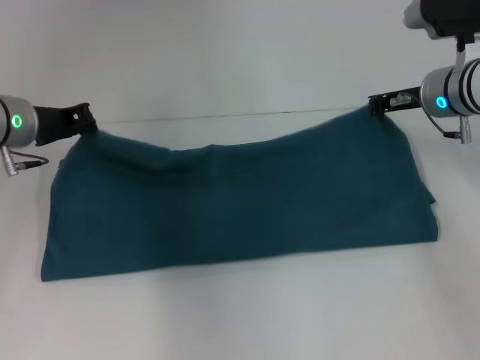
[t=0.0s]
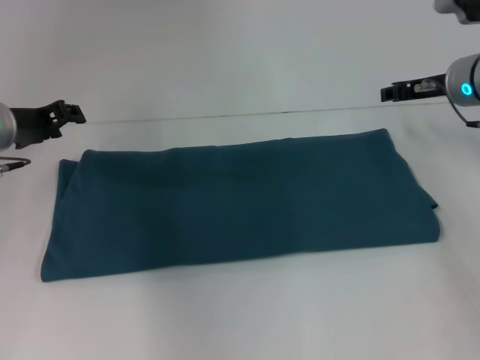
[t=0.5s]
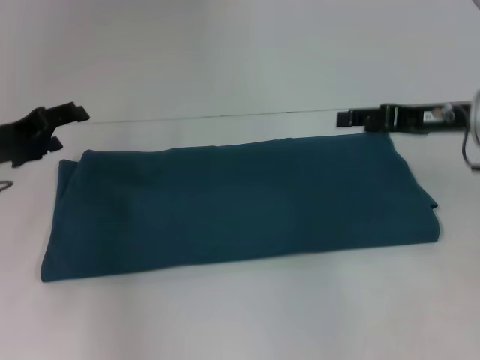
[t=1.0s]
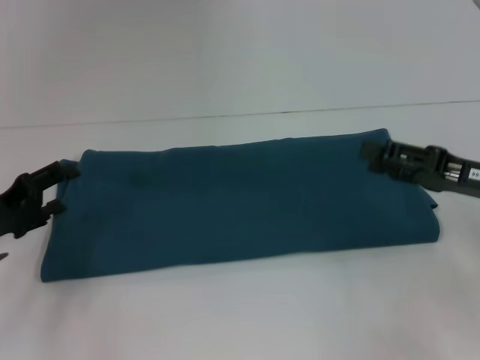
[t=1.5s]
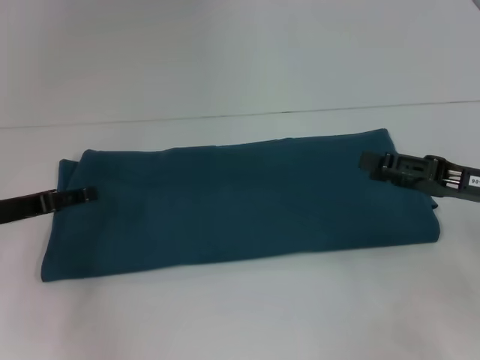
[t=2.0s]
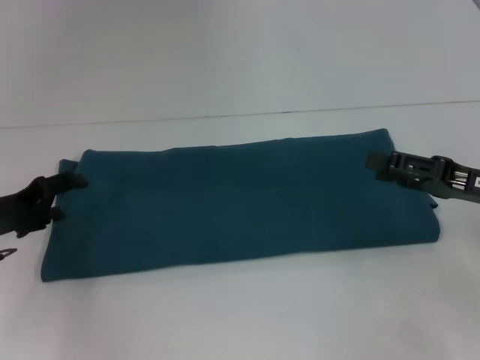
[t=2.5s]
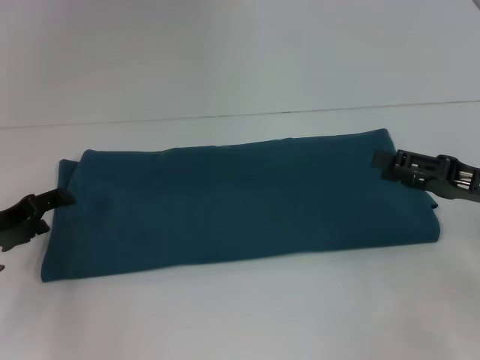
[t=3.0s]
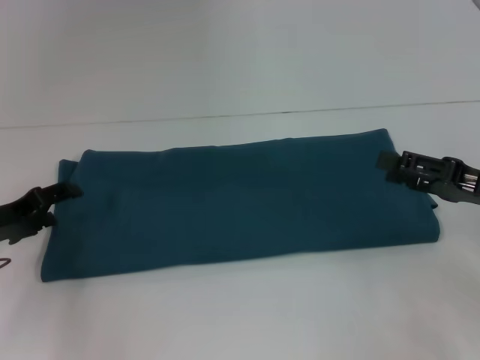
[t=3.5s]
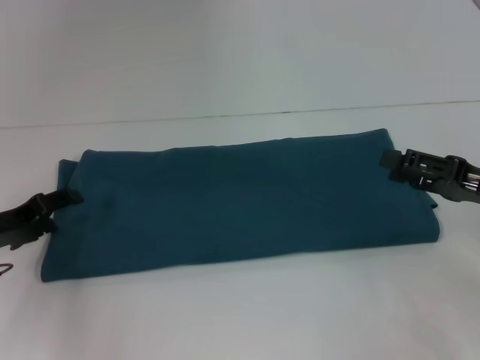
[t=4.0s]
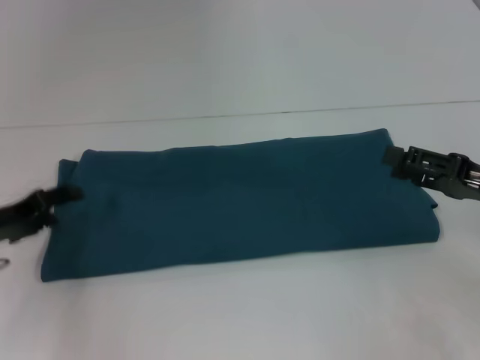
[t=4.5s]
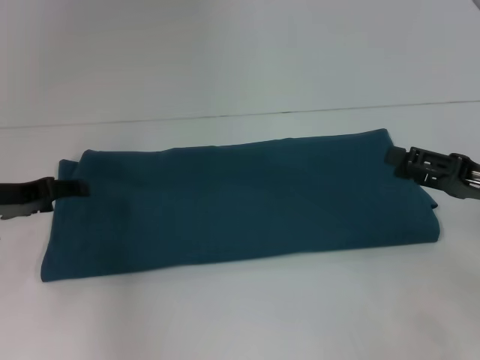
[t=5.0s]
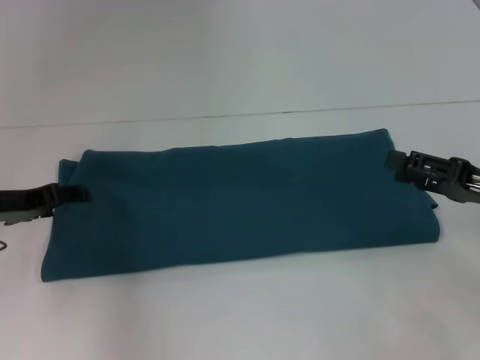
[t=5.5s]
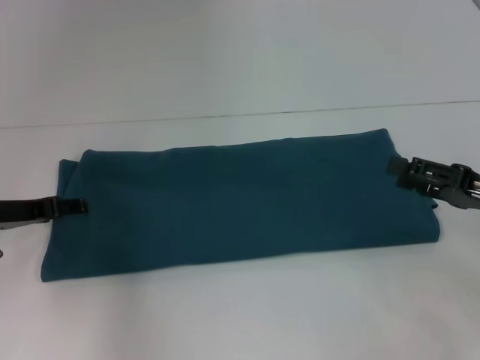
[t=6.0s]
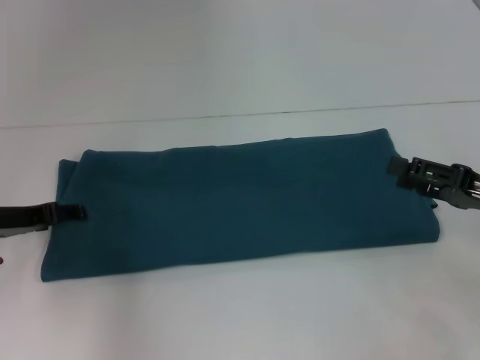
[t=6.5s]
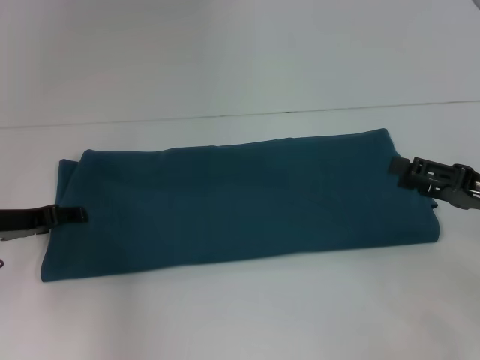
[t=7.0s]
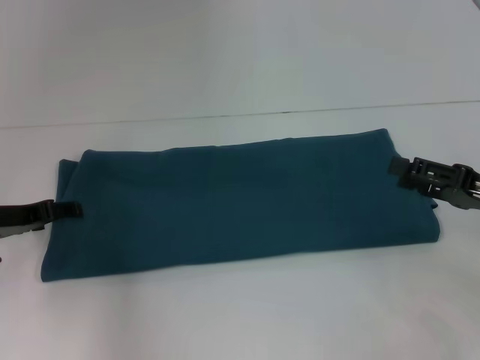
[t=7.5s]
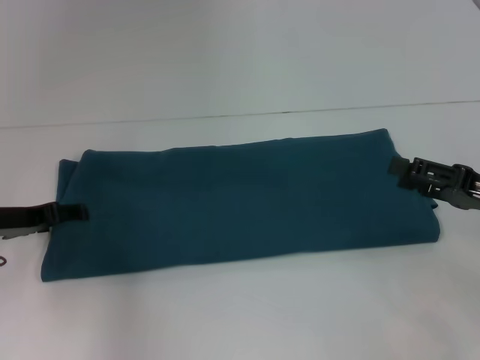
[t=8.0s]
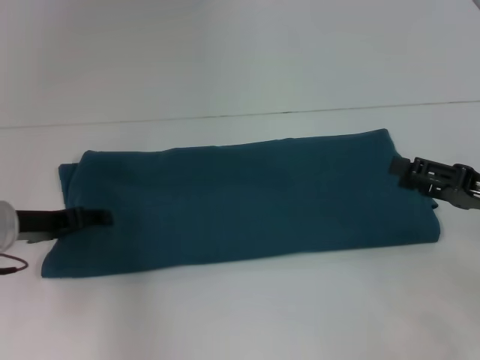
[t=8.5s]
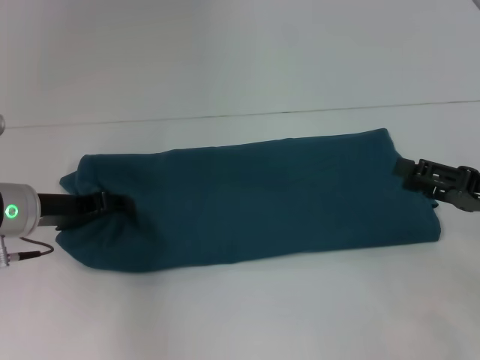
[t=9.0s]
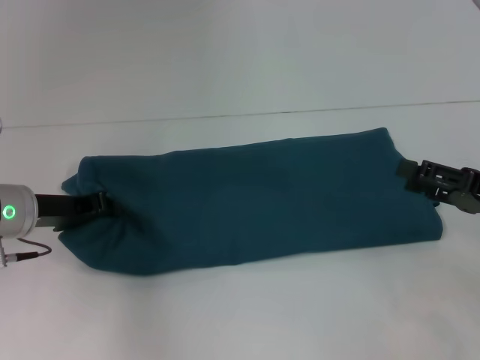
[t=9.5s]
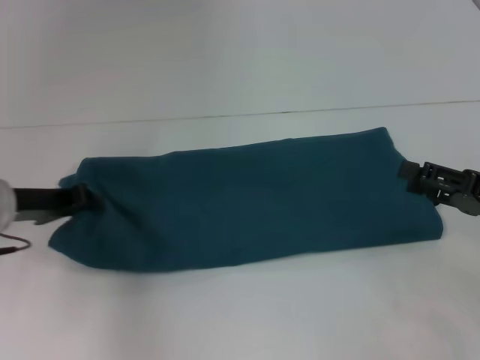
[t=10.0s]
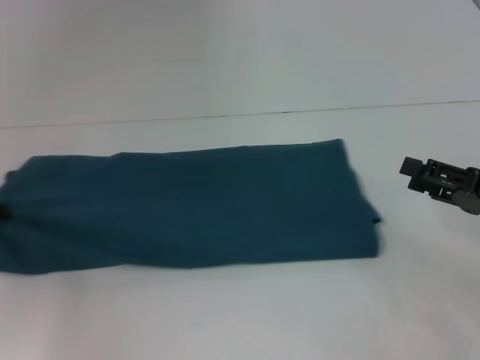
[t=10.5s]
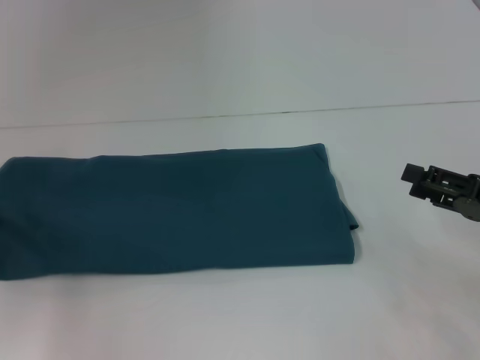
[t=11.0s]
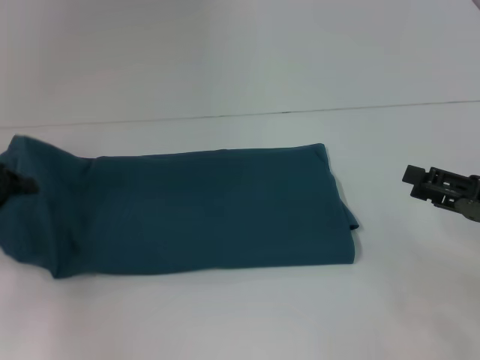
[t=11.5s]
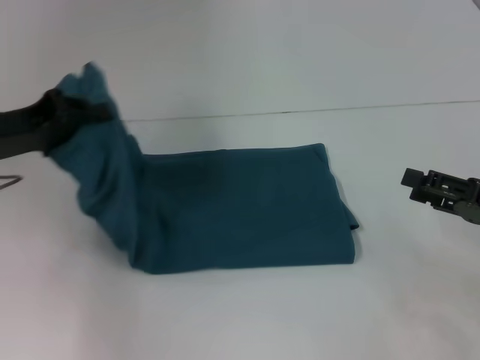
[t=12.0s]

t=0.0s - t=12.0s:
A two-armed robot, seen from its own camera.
t=0.0s - t=2.0s: The right gripper is displaced backward and to the right by some 15 cm, and opens up. The left gripper is displaced backward and to the left by roughly 10 cm, and opens.
t=6.0s - t=8.0s: The grippers make only small movements.
t=8.0s - t=10.0s: The left gripper closes.
t=10.0s - t=12.0s: The left gripper goes roughly 5 cm upward, and moves approximately 10 cm to the left and comes back.

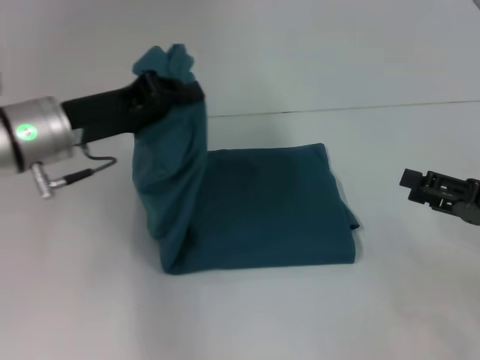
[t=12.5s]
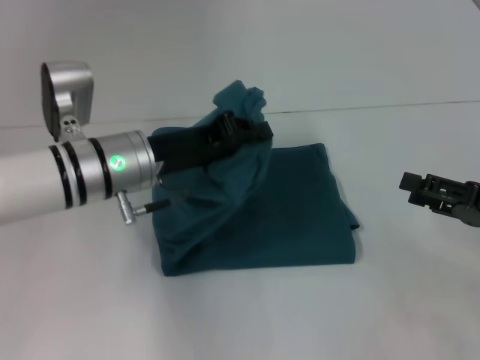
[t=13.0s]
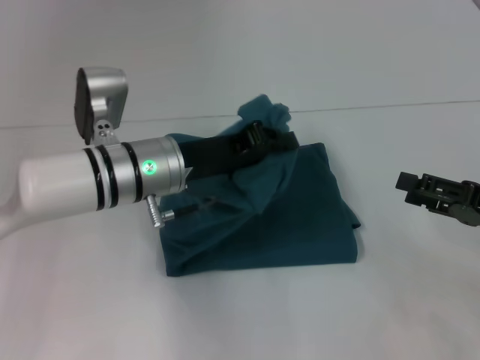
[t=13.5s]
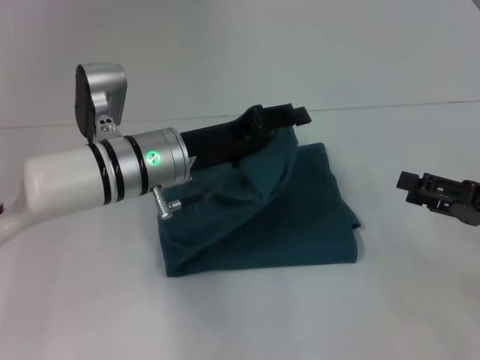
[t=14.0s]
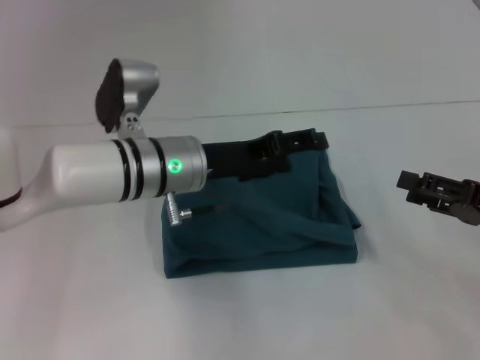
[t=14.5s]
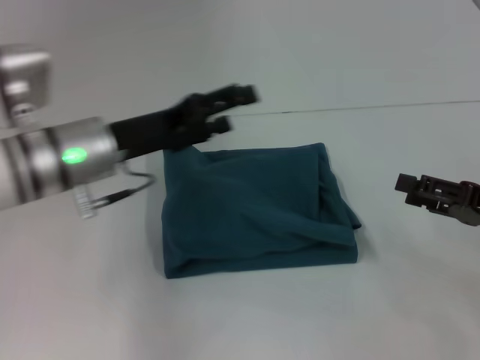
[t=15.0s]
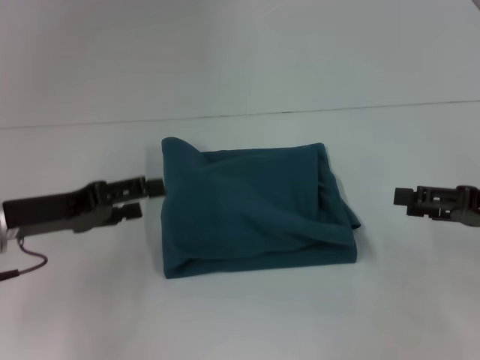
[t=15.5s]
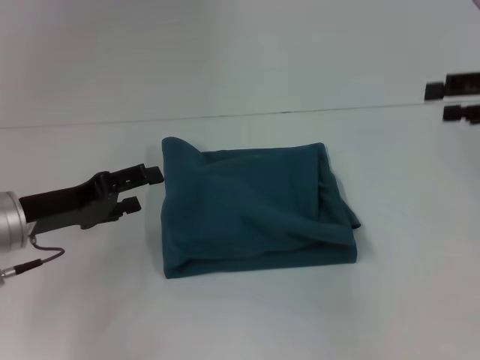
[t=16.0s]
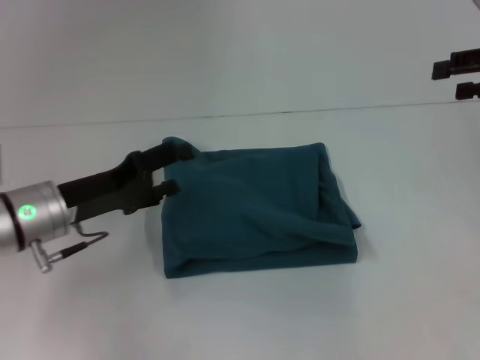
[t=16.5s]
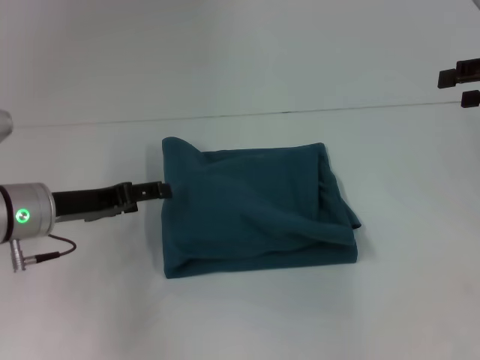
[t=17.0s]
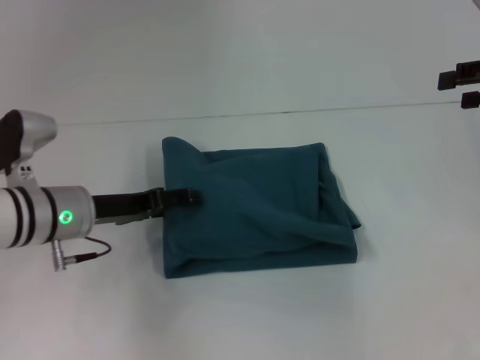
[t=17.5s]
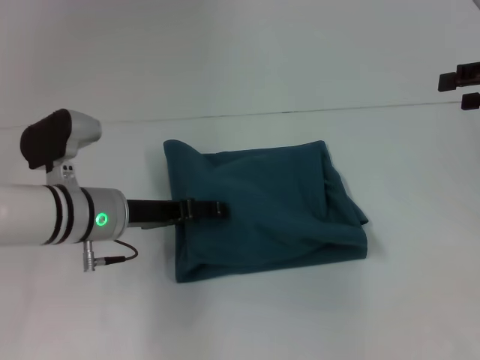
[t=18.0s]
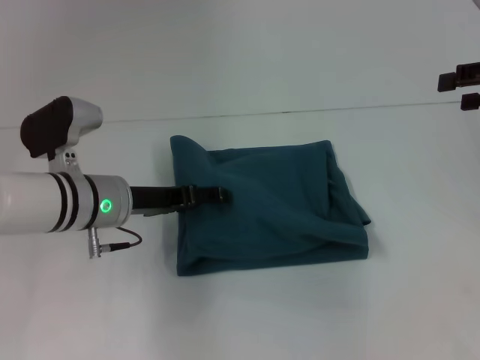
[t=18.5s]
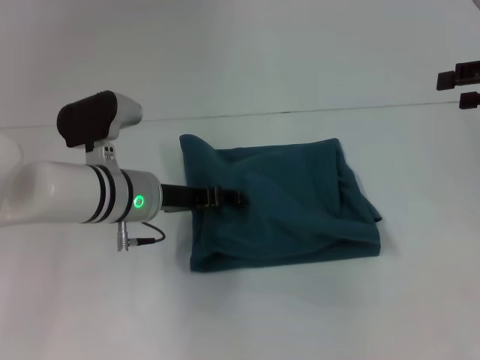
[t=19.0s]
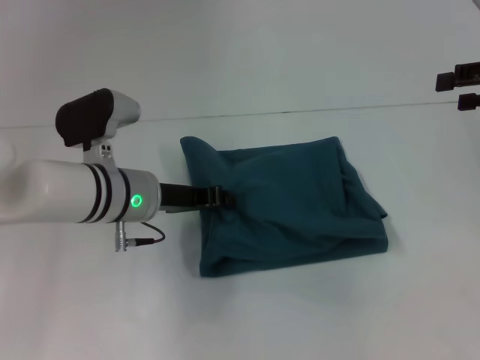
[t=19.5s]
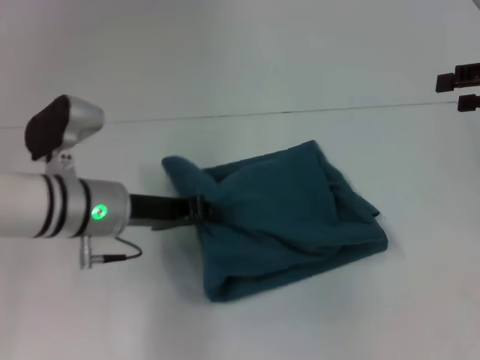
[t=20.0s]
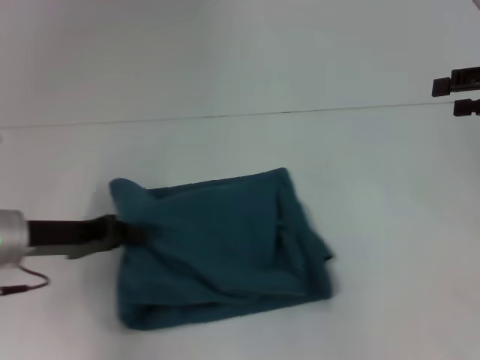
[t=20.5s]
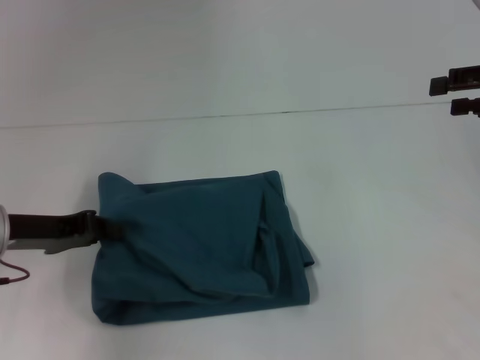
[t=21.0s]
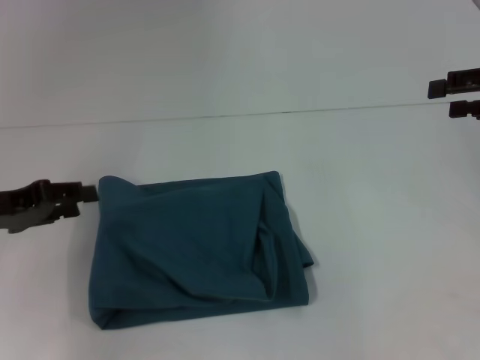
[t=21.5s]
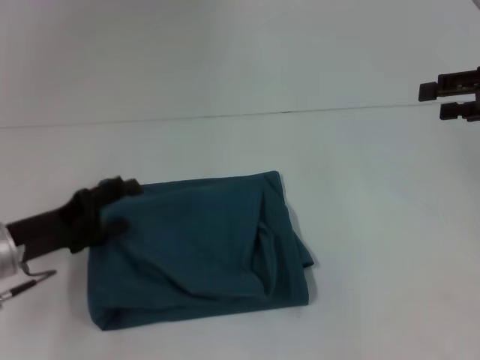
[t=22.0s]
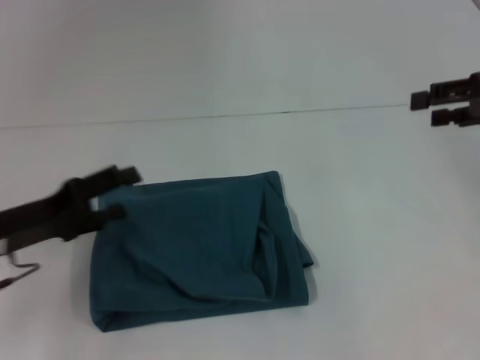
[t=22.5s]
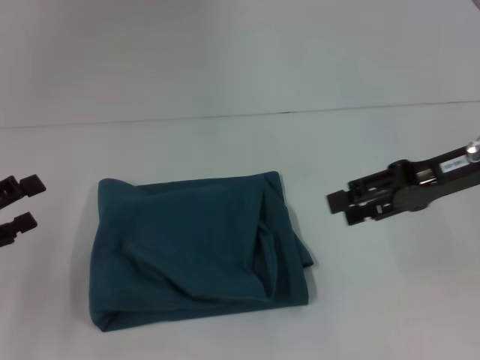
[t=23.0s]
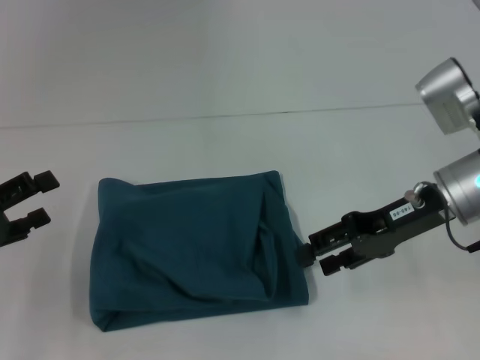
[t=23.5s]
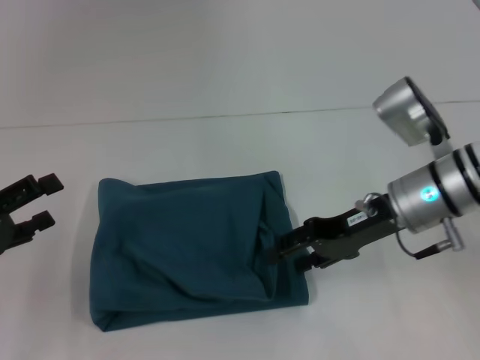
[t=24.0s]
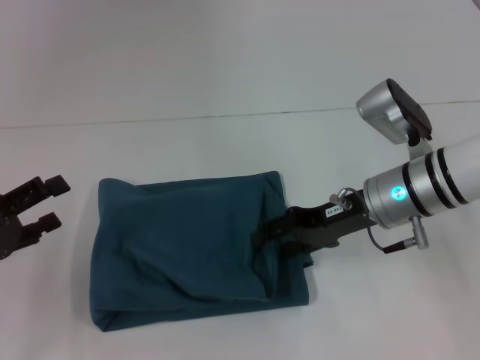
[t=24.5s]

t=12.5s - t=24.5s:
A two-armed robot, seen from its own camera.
Step, t=12.5s - t=14.5s: Fold the clothes to the left.
t=12.5s - t=14.5s: The left gripper travels to the right by some 10 cm, and opens.
t=14.5s - t=16.5s: The left gripper goes roughly 15 cm to the left; the right gripper is displaced upward and forward by roughly 20 cm.
t=16.5s - t=18.5s: The left gripper goes about 5 cm to the right.
t=18.5s - t=20.5s: The left gripper moves to the left, approximately 10 cm, and closes its fingers.
t=20.5s - t=22.5s: The left gripper opens.
t=22.5s - t=24.5s: The right gripper shifts roughly 20 cm to the left and downward. The left gripper moves to the left, roughly 5 cm.

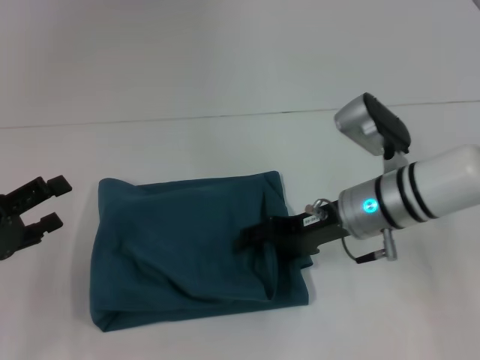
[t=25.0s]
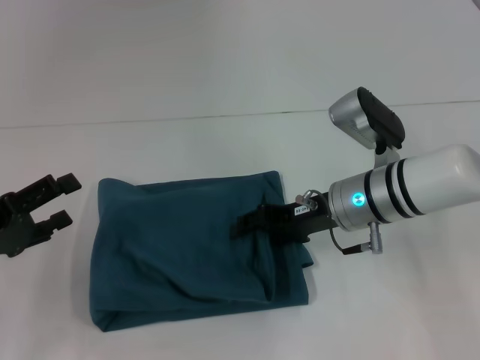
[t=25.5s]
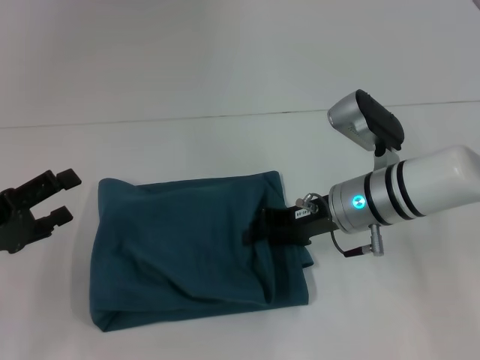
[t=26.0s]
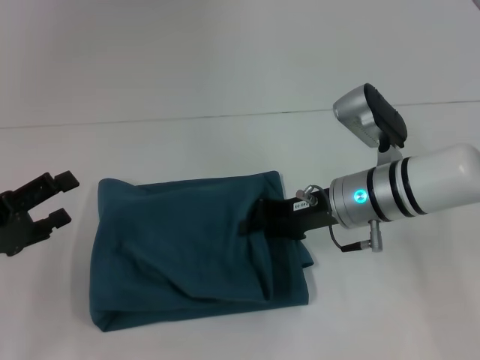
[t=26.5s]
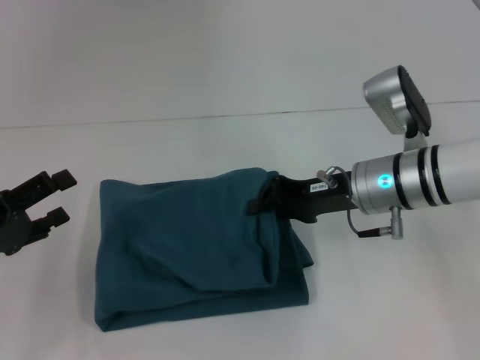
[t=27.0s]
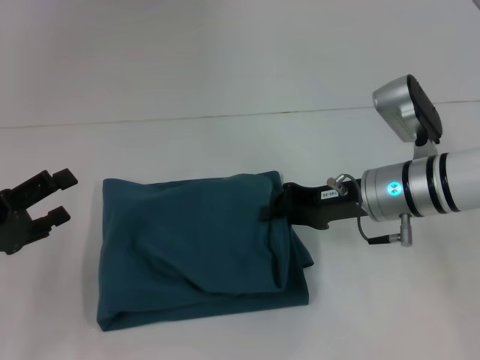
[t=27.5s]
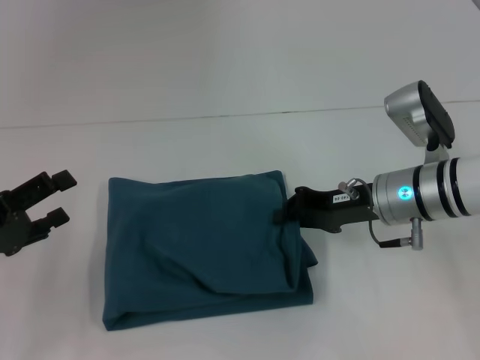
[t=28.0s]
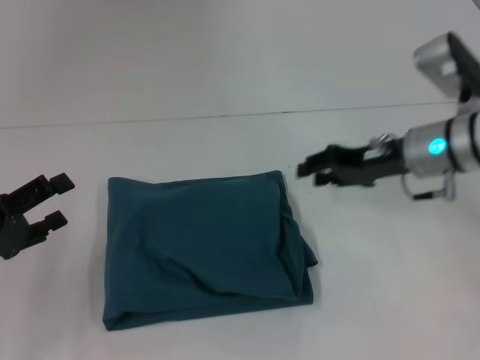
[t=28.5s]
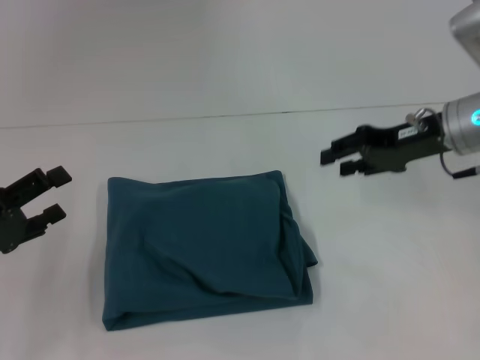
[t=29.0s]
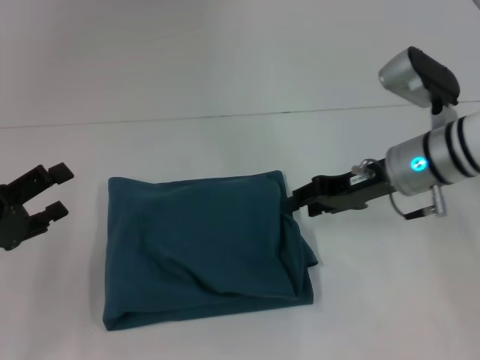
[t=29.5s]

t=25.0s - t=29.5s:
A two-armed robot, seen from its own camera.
t=25.0s - t=27.0s: The right gripper closes.
t=27.0s - t=29.5s: The right gripper opens its fingers.
